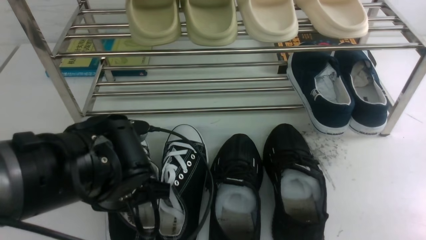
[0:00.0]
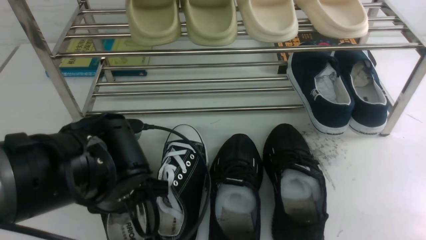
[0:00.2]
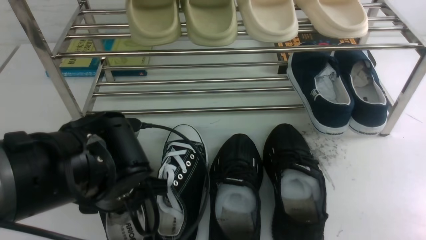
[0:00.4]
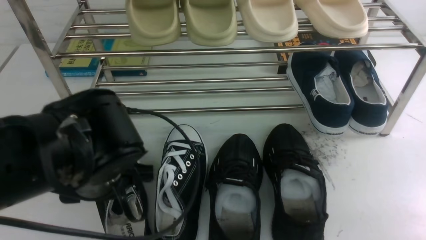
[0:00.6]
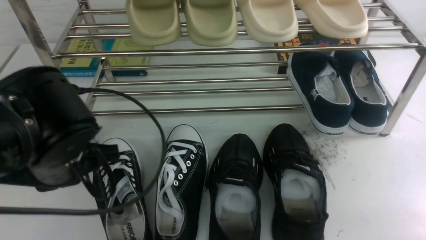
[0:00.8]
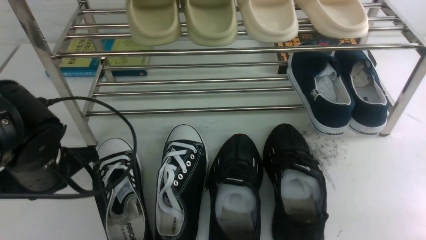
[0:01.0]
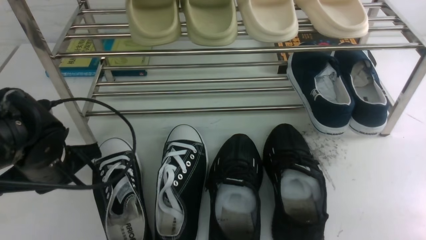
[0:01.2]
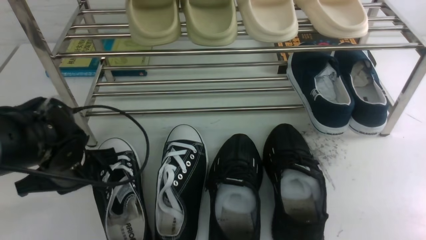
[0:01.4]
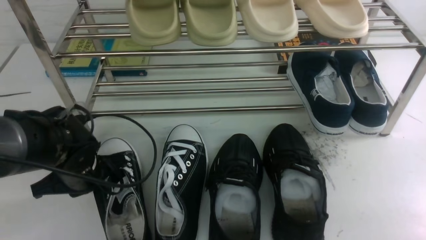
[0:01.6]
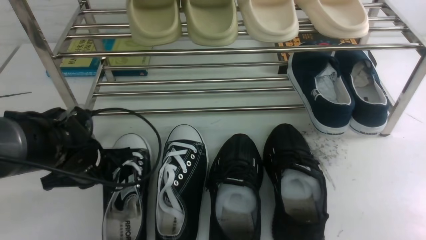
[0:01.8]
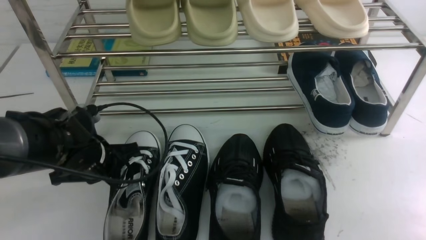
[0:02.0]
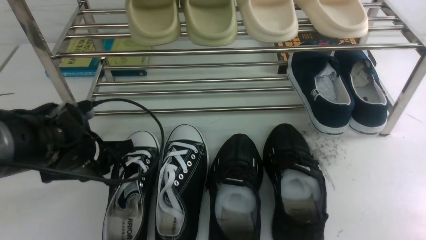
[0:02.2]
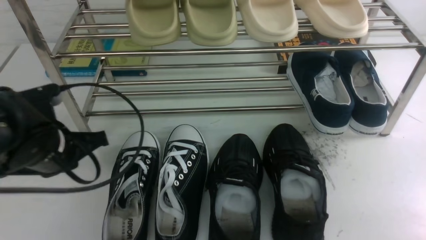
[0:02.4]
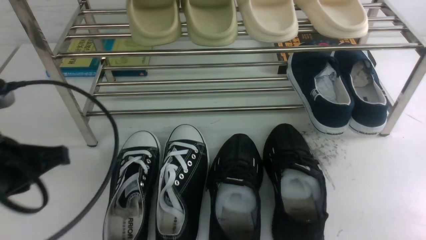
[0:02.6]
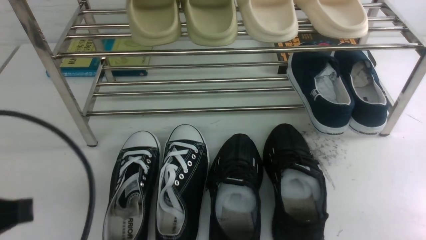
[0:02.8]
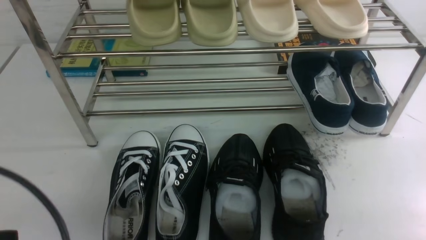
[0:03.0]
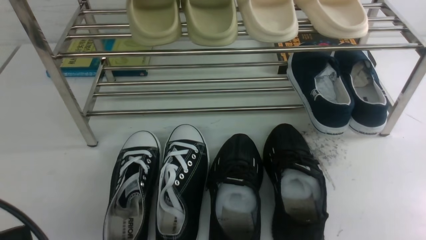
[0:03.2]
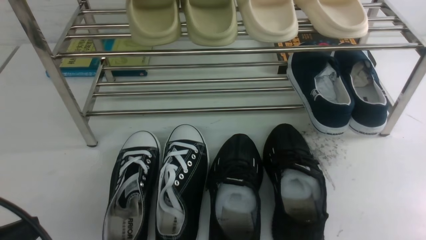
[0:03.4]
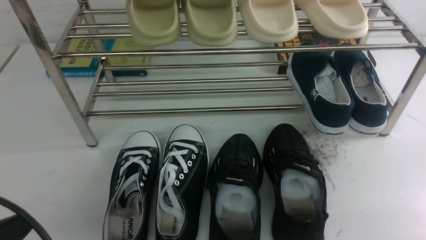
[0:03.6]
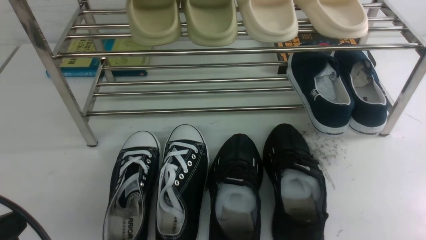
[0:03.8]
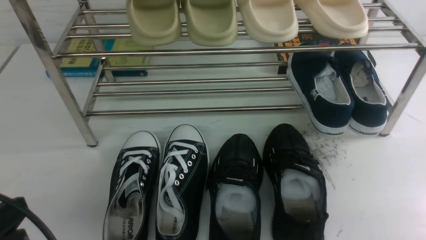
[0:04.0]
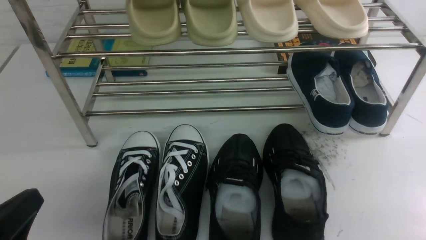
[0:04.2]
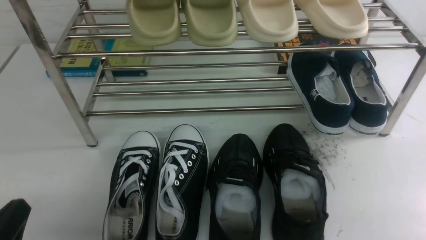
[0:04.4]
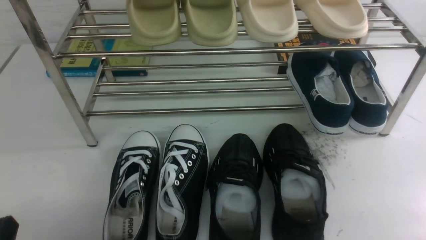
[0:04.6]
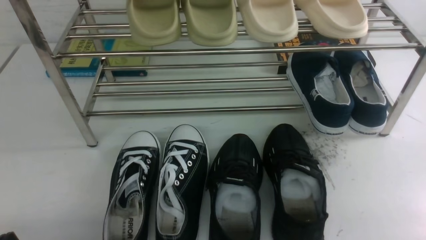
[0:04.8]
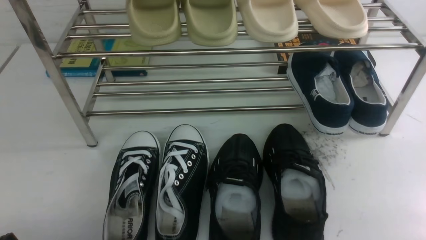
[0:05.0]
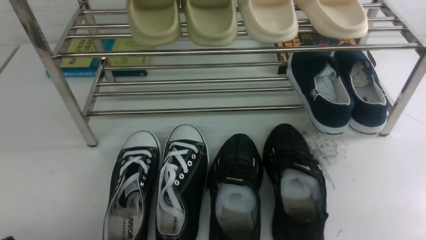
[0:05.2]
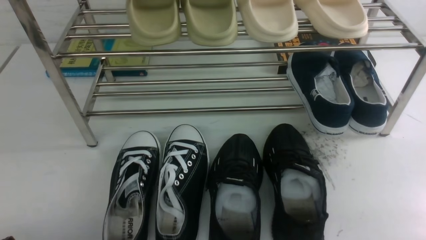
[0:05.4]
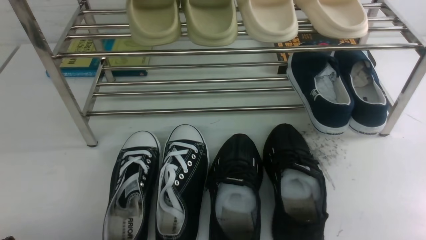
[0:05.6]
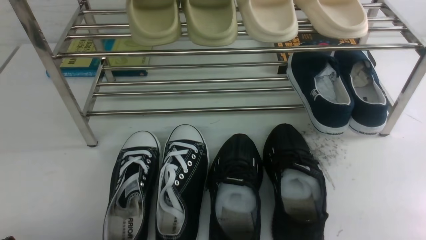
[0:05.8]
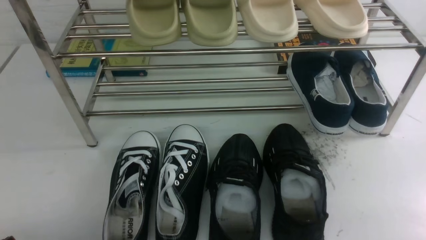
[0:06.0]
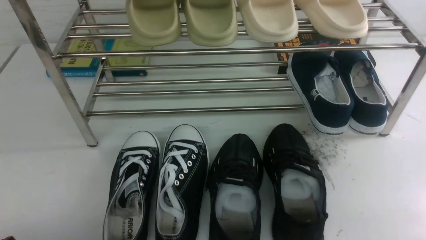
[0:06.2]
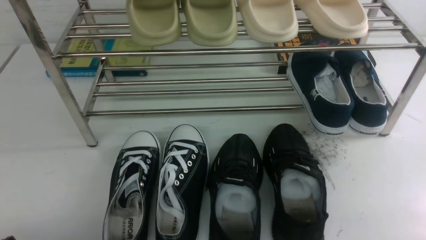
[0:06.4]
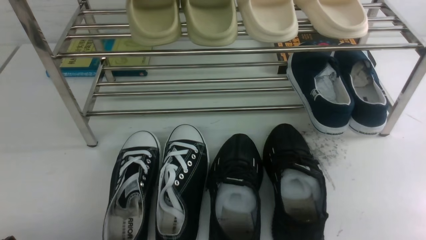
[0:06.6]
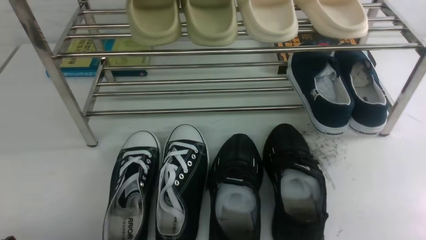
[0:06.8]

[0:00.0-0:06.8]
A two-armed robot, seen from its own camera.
0:00.0 to 0:01.4: The left gripper heads to the left and forward, covering approximately 10 cm, and opens, then closes again.
0:01.4 to 0:02.8: The left gripper goes some 20 cm backward and upward.
0:02.8 to 0:04.0: The left gripper travels downward by roughly 5 cm.
0:04.0 to 0:05.4: The left gripper goes roughly 10 cm downward.
0:05.4 to 0:06.8: Neither gripper changes place.

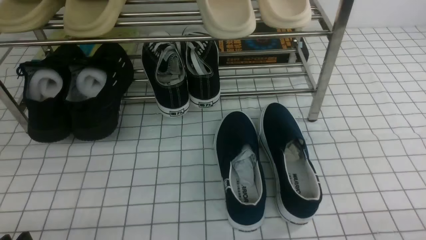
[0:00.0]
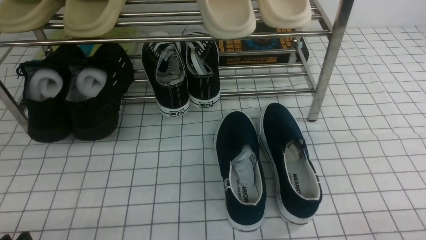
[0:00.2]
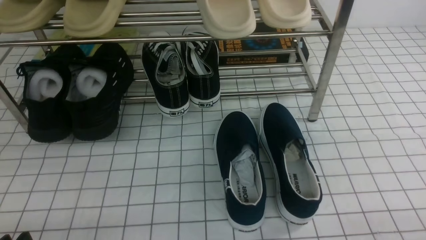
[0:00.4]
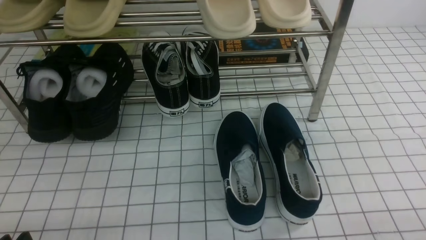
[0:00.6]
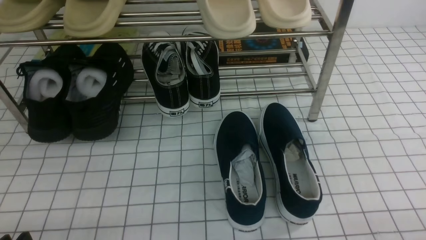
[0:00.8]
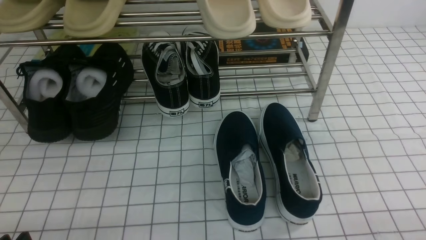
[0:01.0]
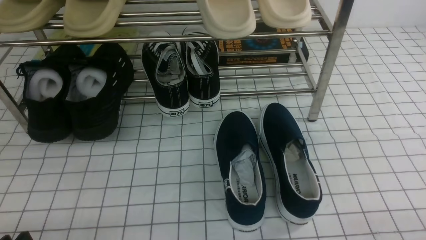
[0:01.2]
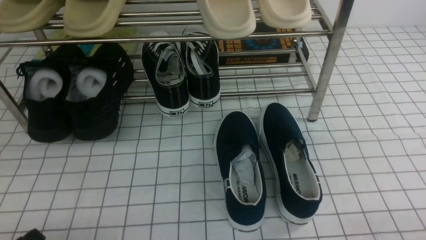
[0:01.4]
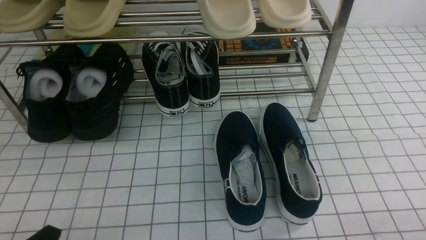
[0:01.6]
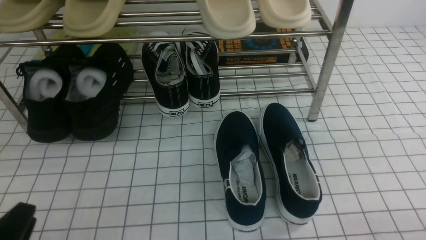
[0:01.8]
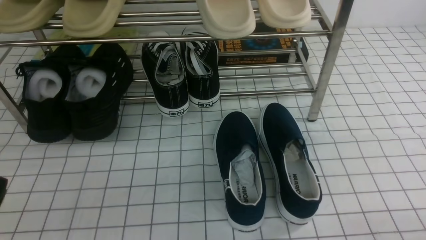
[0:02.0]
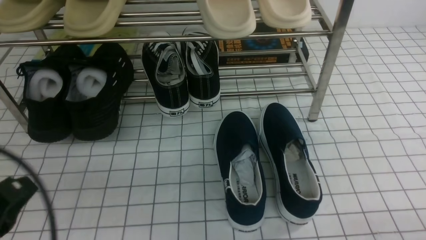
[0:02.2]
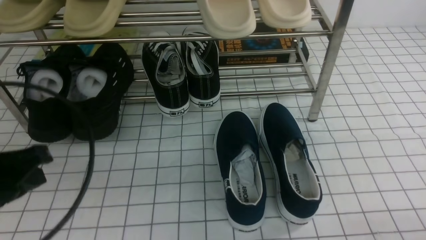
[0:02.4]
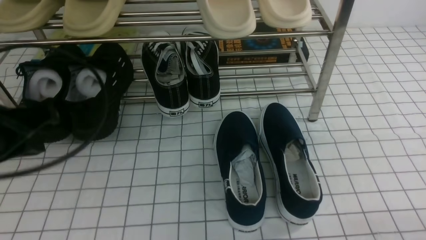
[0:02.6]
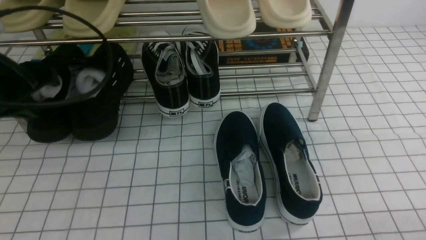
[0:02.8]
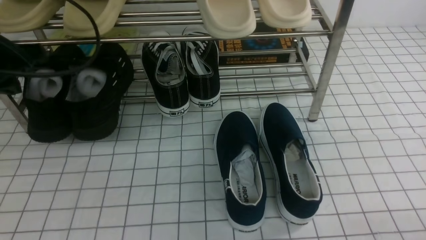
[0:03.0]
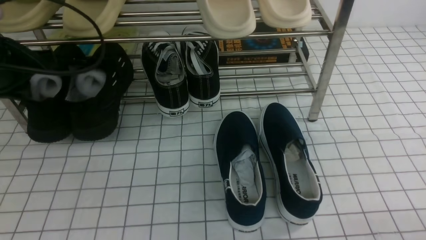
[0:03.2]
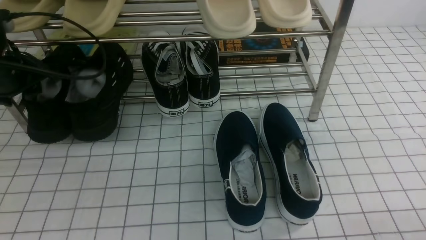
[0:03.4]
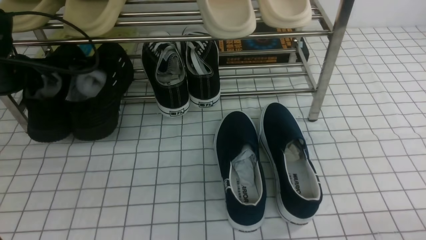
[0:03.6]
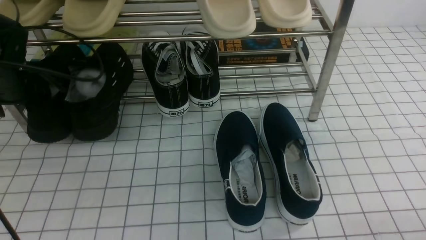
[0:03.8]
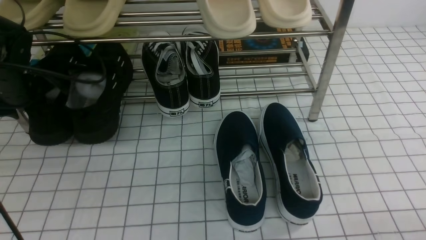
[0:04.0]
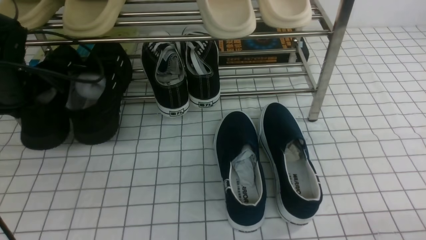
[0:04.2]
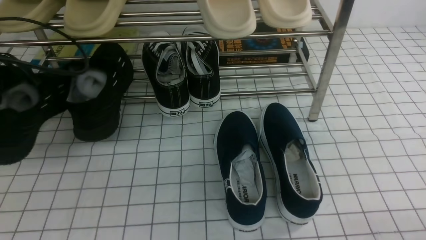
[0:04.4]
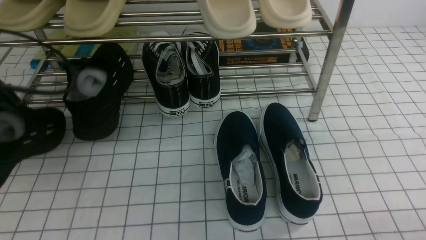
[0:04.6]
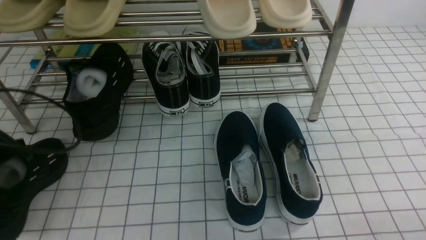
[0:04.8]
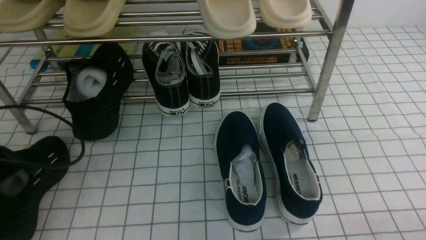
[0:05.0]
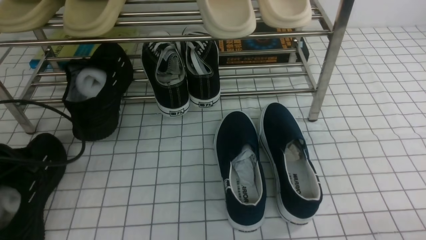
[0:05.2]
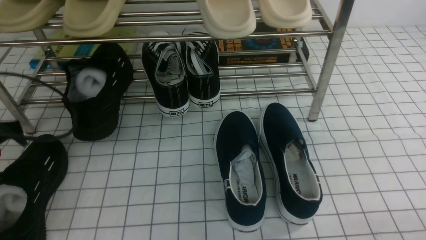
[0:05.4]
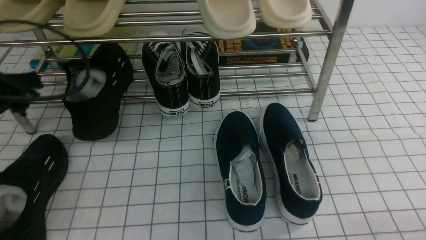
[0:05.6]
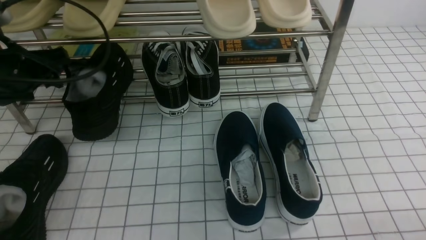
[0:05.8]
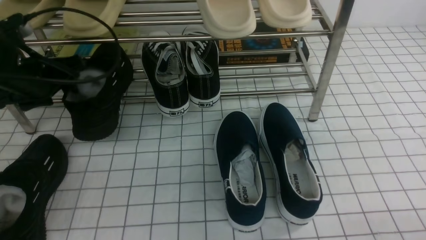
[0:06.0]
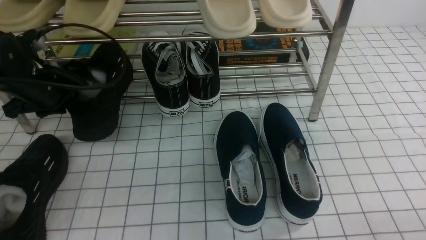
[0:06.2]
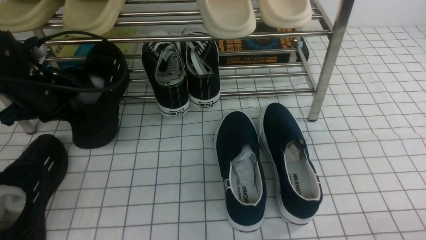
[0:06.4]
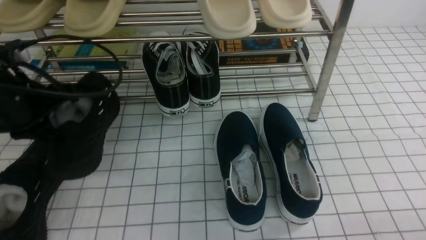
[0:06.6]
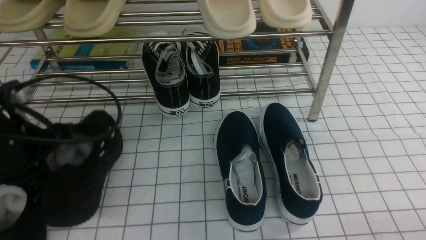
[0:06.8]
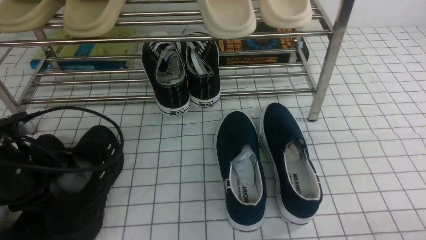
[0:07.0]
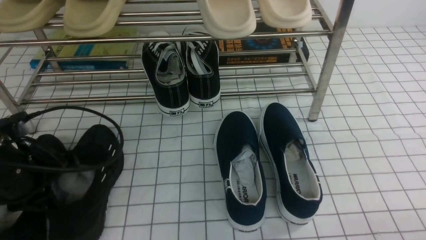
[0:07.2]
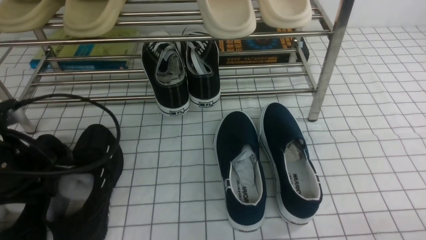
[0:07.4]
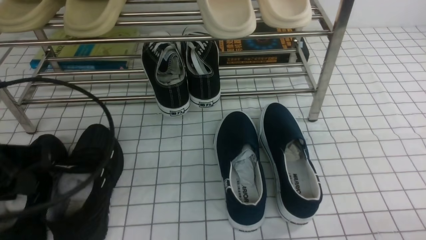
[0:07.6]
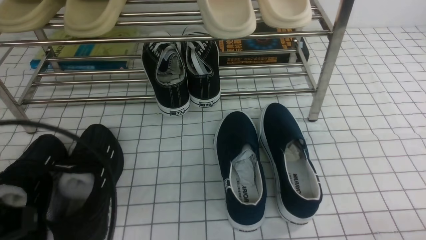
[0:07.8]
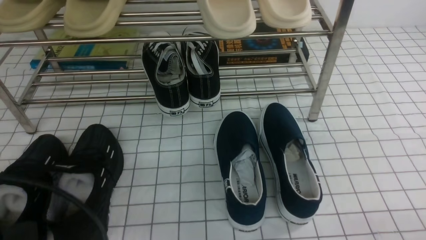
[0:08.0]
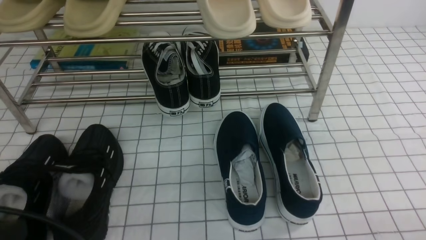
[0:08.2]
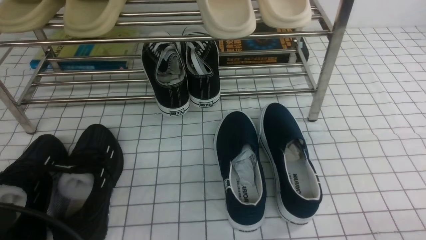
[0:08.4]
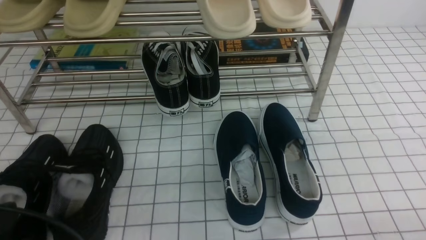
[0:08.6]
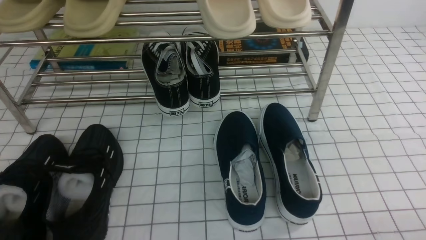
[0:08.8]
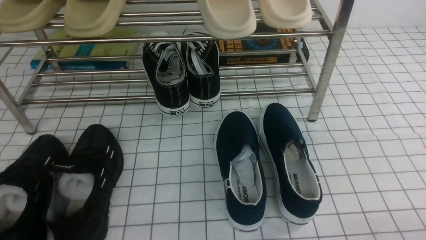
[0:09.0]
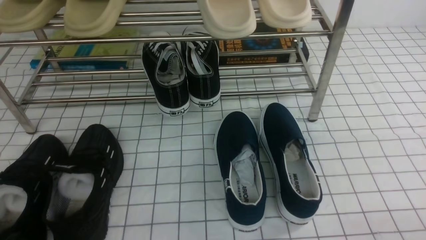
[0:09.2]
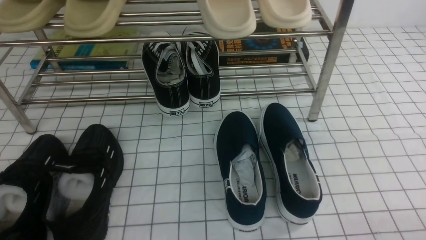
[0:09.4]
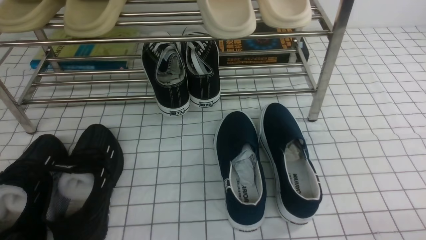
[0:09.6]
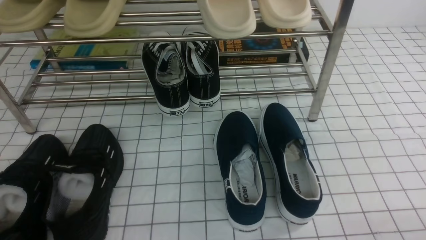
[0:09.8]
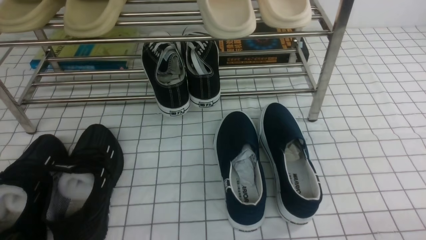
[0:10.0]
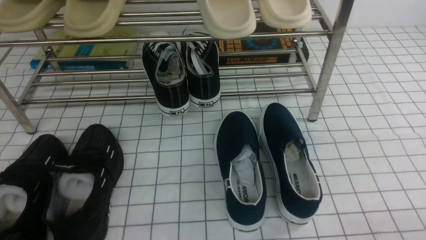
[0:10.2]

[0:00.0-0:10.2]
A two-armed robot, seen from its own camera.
Step, 0:00.0 to 0:04.0: use the left arm to clamp a shoe on the left side of the shoe rack.
Step, 0:04.2 to 0:05.4: Use your left arm to remove the clamped shoe from the shoe rack and put it down.
Step, 0:05.6 to 0:06.2: use the left arm to clamp a shoe on the left side of the shoe rack.
Step, 0:06.4 to 0:08.0: Use your left arm to remove the clamped shoe from the shoe rack and put it down.
0:01.4 to 0:03.0: The left gripper moves forward and upward, roughly 30 cm, and closes up.
0:03.0 to 0:04.4: The left gripper opens, then closes again.
0:04.4 to 0:05.8: The left gripper moves some 10 cm backward and comes back, and opens.
0:05.8 to 0:07.2: The left gripper travels backward and downward by roughly 10 cm, and closes its fingers.
0:07.2 to 0:08.8: The left gripper heads backward, covering roughly 15 cm.
